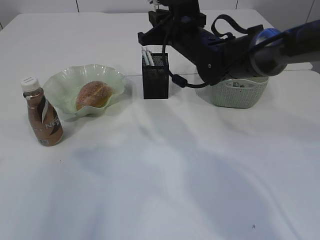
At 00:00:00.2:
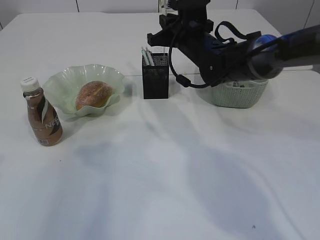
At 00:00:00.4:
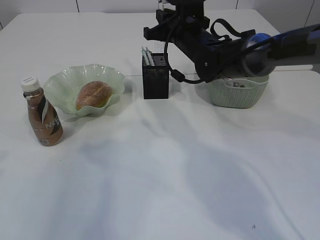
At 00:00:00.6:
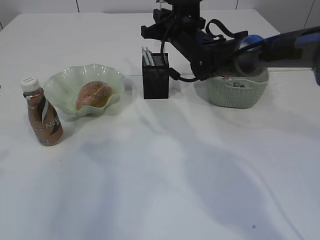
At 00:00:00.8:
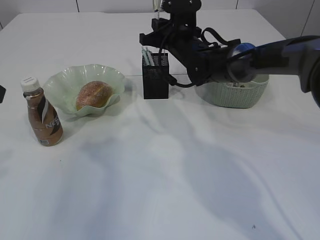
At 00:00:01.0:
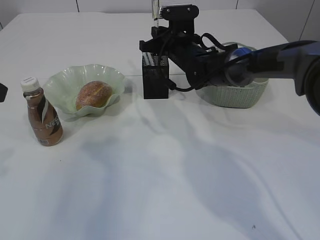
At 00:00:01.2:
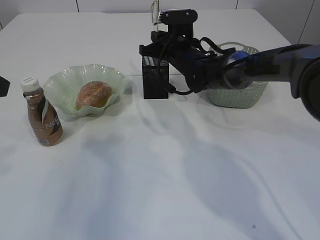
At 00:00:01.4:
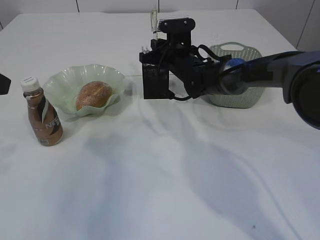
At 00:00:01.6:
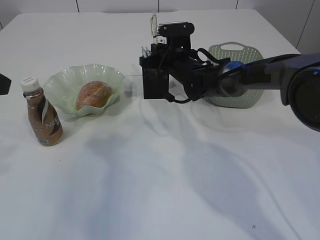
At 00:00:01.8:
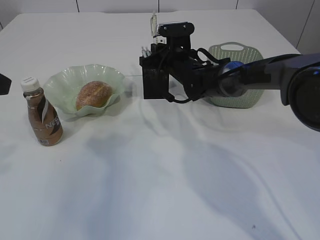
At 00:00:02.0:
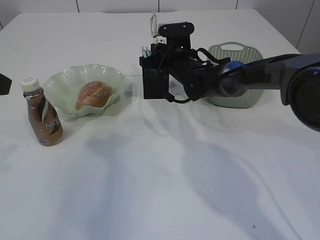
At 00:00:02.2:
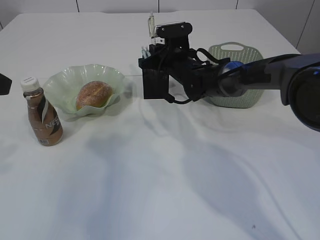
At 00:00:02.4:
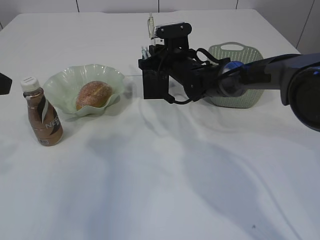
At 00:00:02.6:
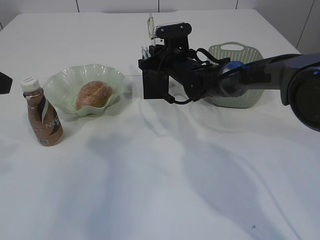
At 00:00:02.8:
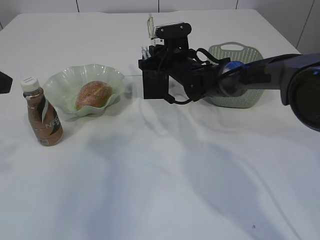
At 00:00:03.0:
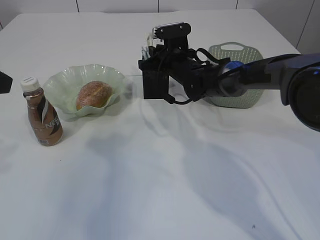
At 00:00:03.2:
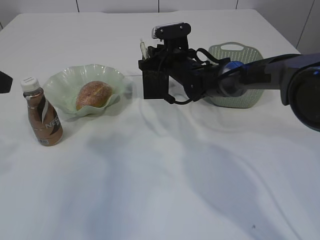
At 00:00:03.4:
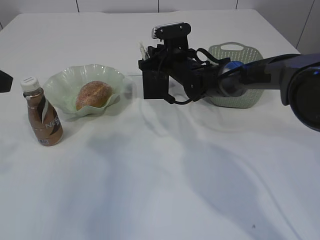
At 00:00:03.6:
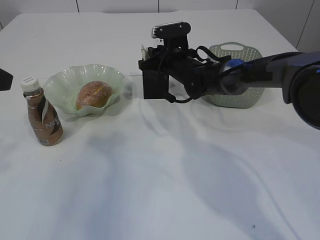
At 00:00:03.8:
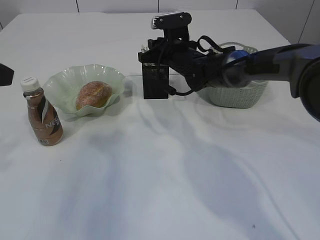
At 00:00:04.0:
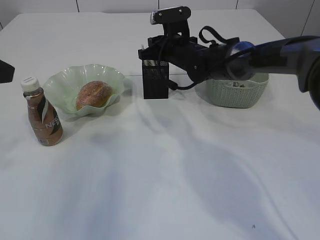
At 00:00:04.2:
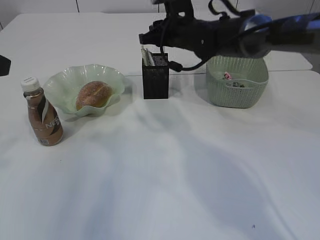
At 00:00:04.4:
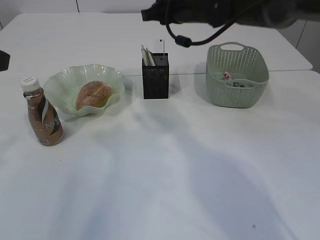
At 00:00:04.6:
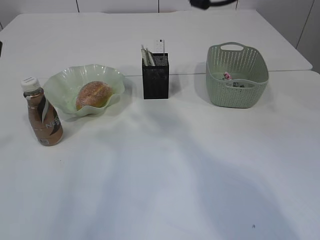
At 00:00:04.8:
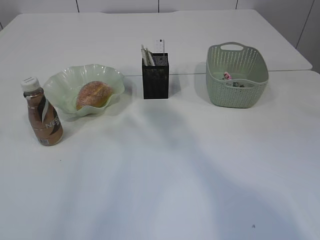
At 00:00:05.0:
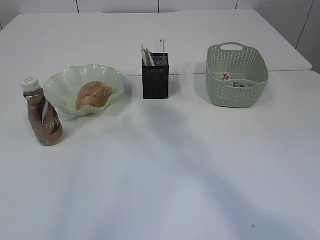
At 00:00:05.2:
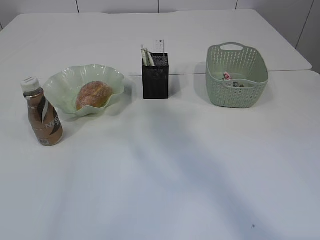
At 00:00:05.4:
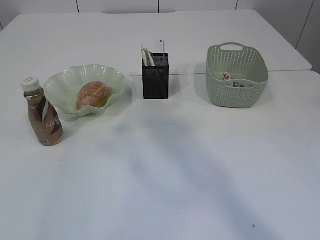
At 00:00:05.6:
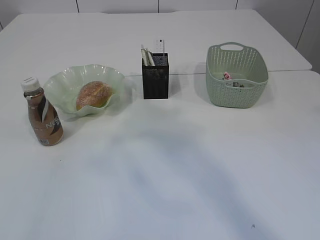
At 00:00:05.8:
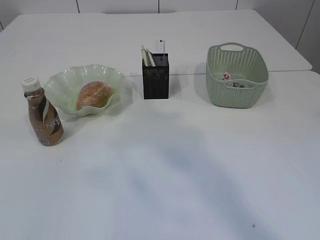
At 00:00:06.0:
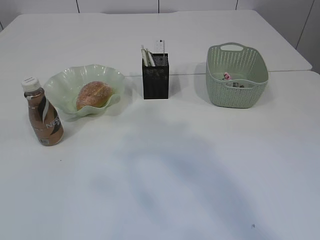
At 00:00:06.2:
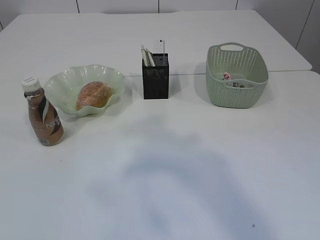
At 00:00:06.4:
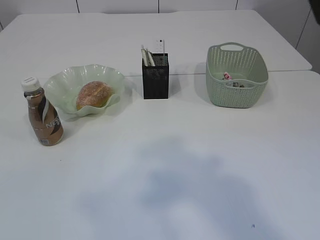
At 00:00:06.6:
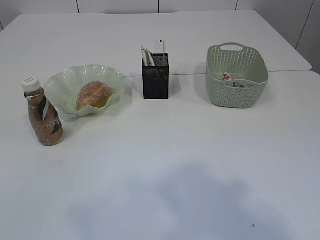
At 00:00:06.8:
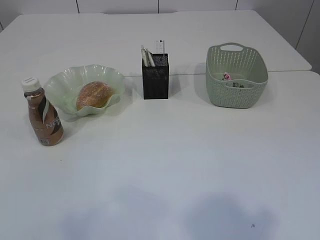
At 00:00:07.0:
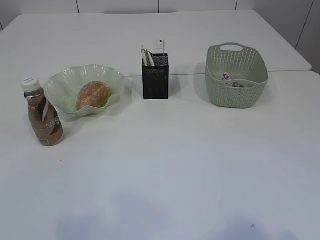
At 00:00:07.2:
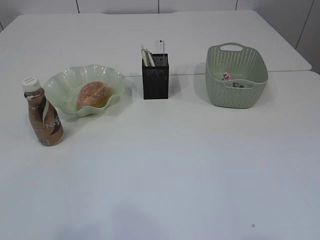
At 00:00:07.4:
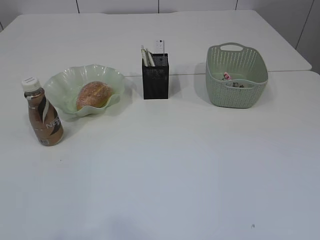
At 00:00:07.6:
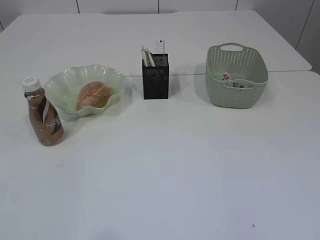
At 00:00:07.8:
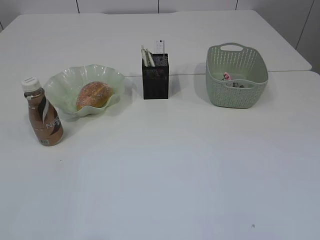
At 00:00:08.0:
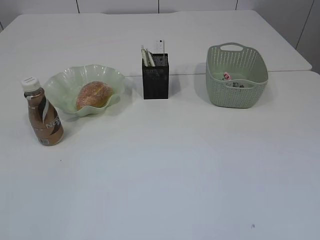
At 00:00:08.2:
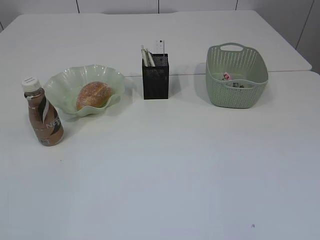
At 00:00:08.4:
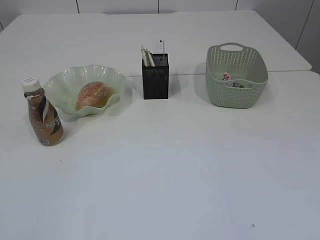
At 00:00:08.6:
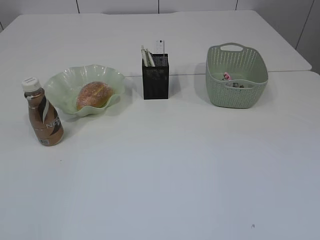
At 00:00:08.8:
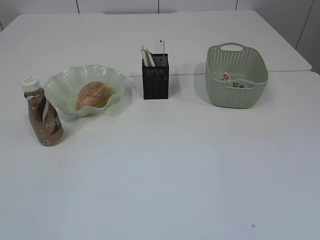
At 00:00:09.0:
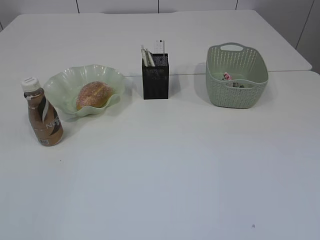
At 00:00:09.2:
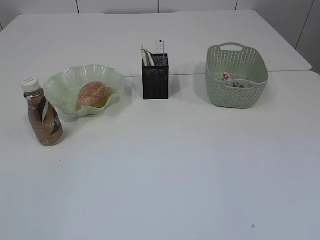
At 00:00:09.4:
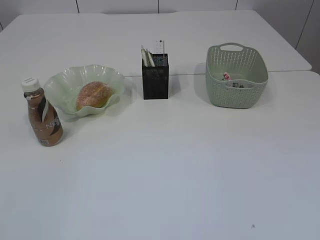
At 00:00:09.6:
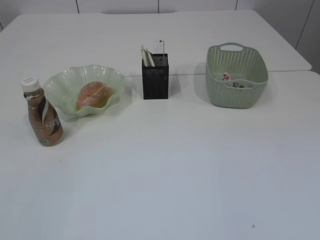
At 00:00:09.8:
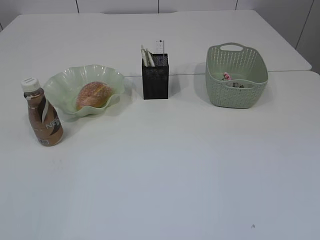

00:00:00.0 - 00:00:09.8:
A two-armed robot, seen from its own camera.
Step, 00:00:00.0 - 00:00:04.4: Place the pen into the pen holder.
00:00:00.0 - 00:00:01.4: The right gripper is displaced downward and forward by approximately 10 cm.
00:00:01.4 - 00:00:02.8: Neither gripper changes place.
00:00:02.8 - 00:00:04.2: The right gripper is displaced upward by some 5 cm.
00:00:04.2 - 00:00:05.6: The right gripper shifts about 40 cm upward and backward, and opens up. Meanwhile the left gripper moves upward, backward and to the left, roughly 20 cm, and opens.

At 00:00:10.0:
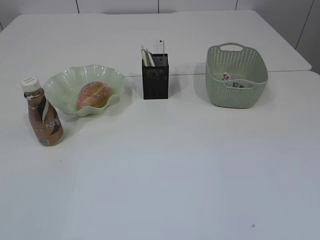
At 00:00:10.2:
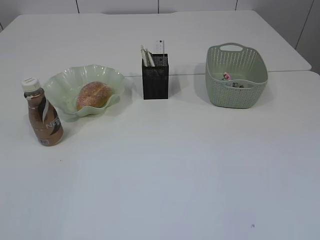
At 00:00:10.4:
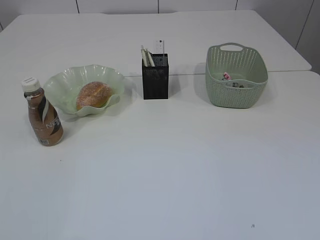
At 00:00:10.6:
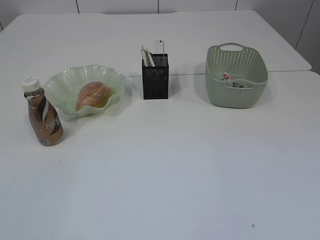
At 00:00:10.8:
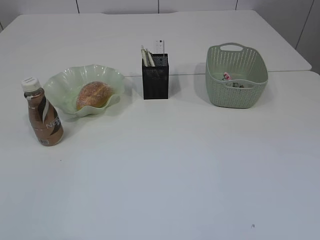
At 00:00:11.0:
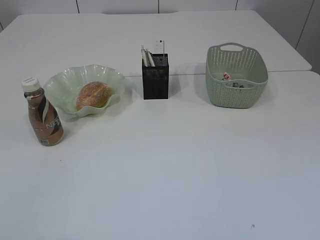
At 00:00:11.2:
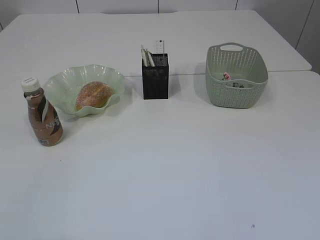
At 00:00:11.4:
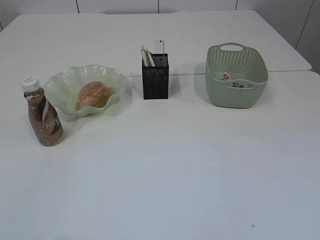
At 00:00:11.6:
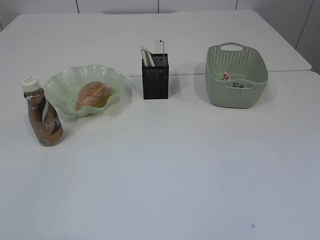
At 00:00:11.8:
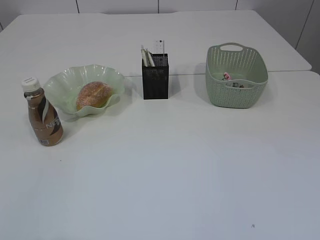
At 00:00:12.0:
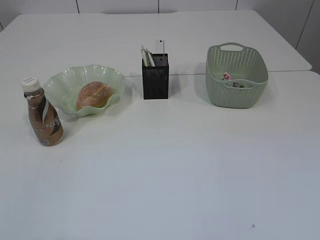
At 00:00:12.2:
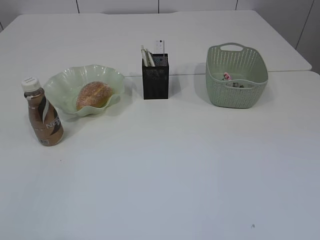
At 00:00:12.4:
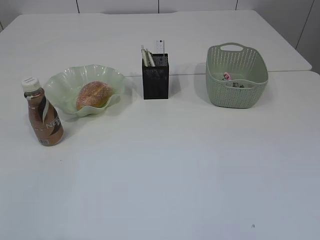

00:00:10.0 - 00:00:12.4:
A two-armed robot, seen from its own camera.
00:00:11.2 - 00:00:12.4: Neither gripper changes place.
